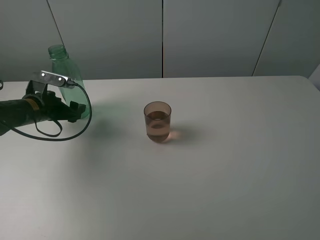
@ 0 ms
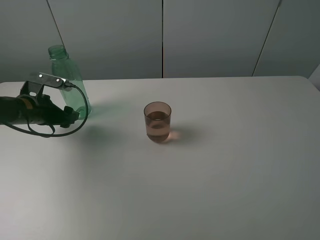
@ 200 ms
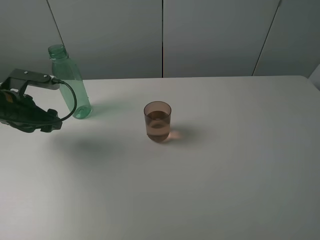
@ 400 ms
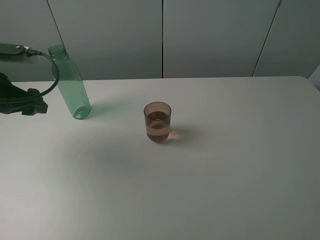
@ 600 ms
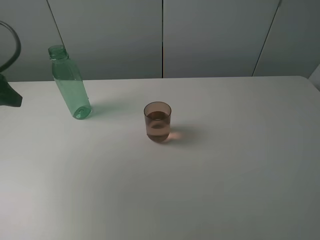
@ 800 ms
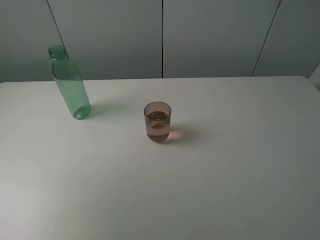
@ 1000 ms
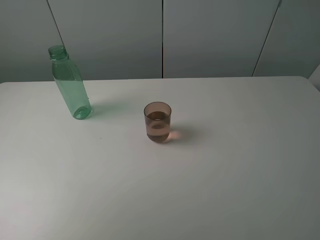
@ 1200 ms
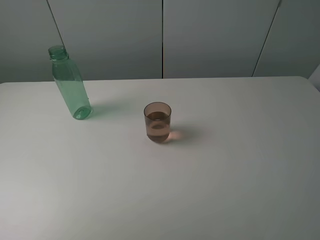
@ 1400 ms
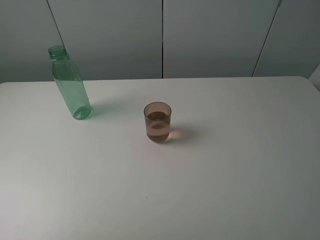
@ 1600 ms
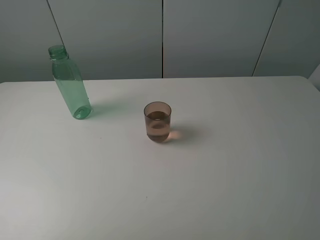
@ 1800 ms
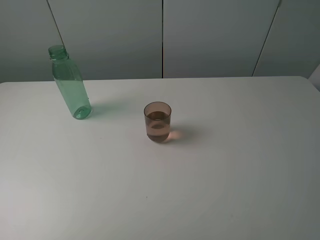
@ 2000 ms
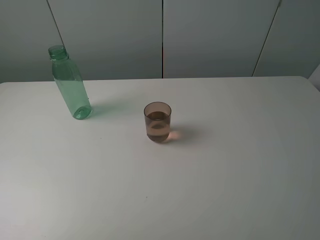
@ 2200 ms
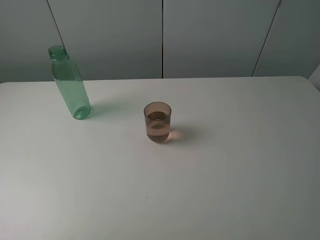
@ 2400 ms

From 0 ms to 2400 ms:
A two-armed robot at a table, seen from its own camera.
Task of the whole recording: pick up the bottle filled with water and pour it into the pink cup.
From 0 ms to 1200 ms: The left gripper travels backward and upward by some 35 cm.
